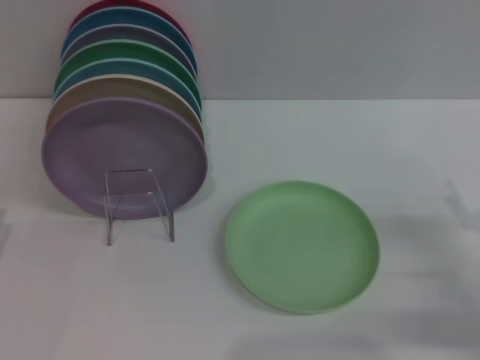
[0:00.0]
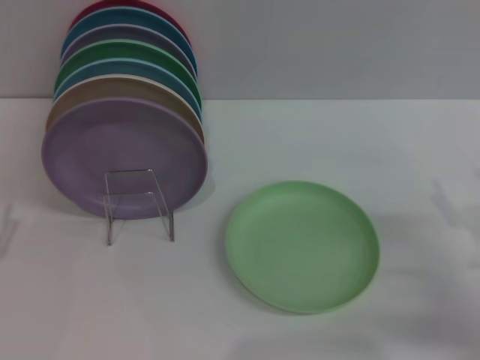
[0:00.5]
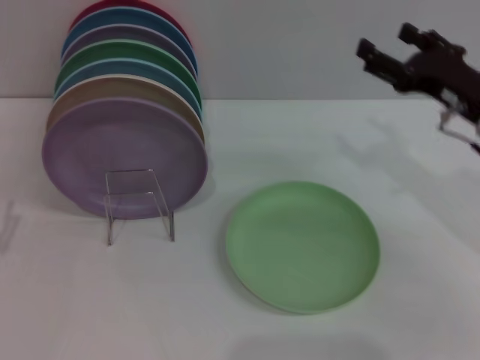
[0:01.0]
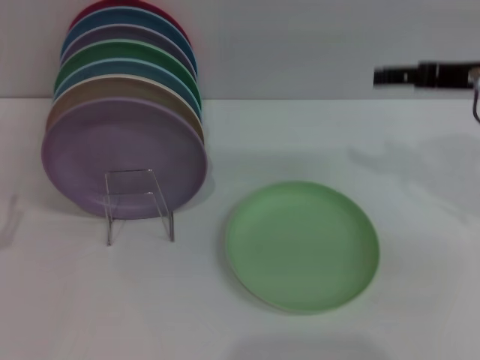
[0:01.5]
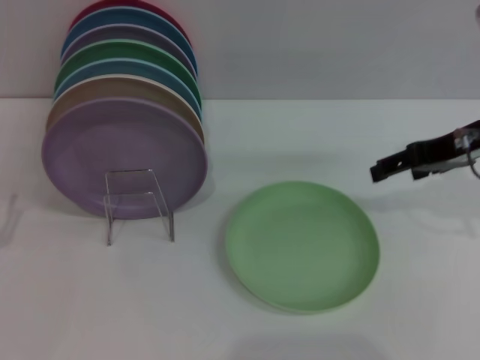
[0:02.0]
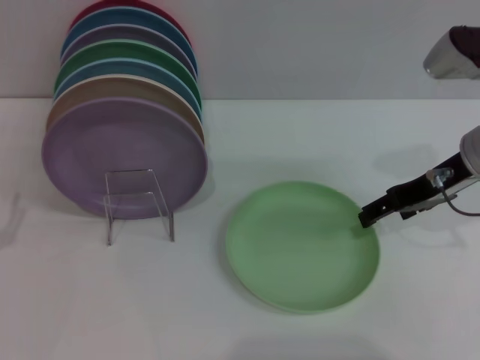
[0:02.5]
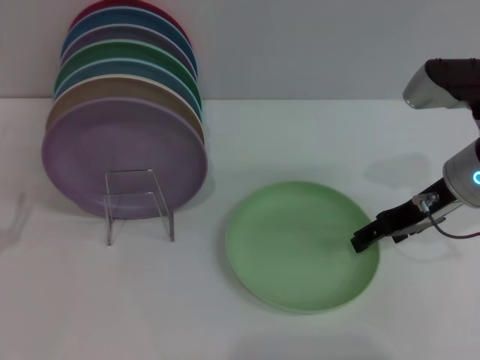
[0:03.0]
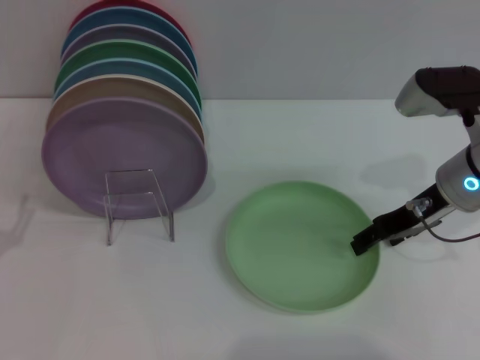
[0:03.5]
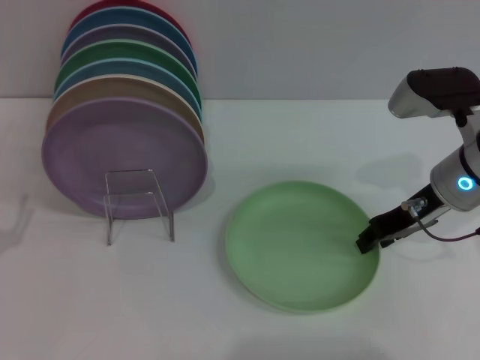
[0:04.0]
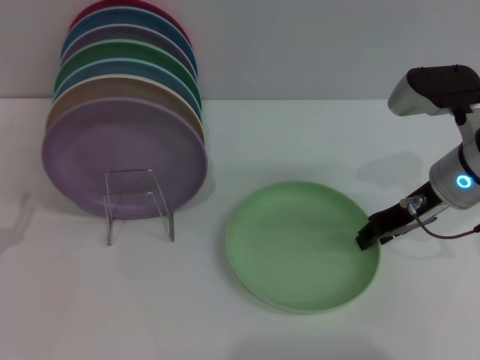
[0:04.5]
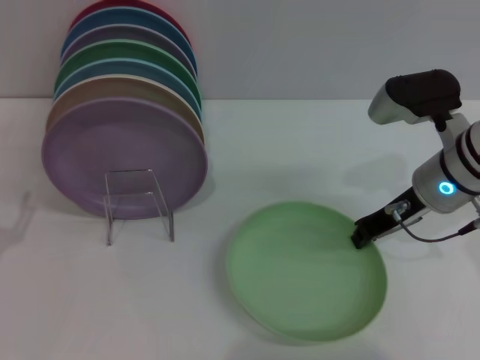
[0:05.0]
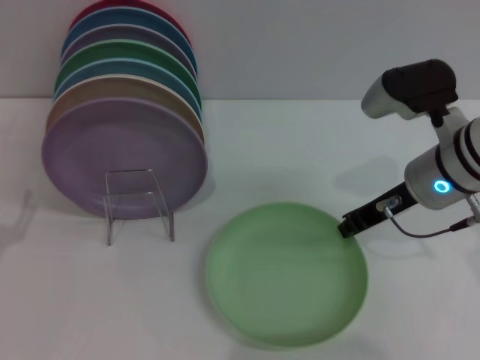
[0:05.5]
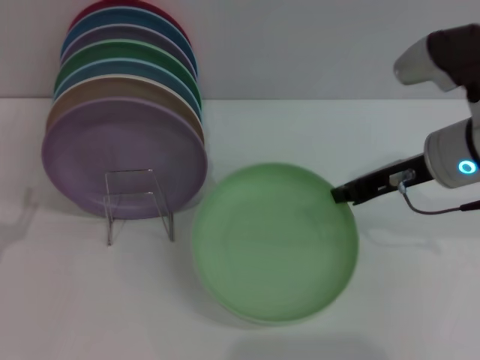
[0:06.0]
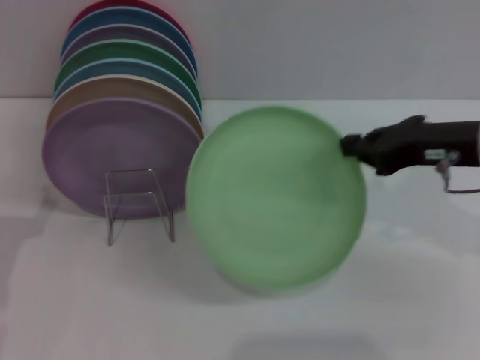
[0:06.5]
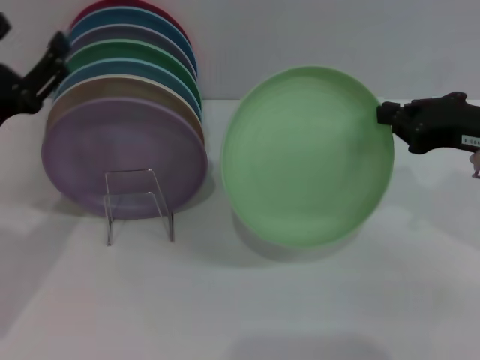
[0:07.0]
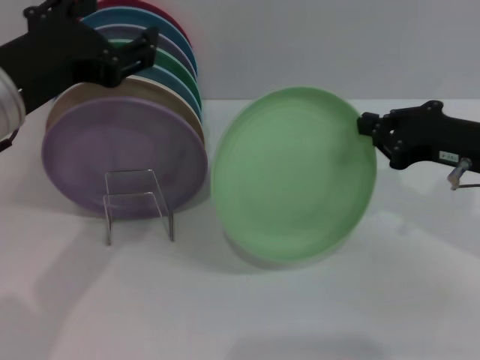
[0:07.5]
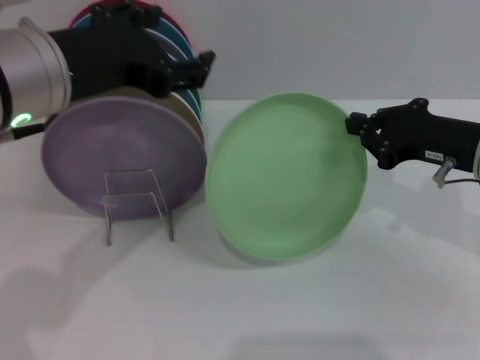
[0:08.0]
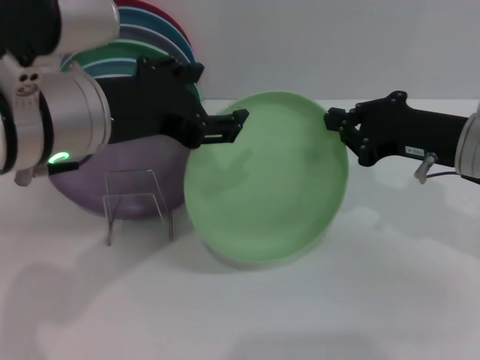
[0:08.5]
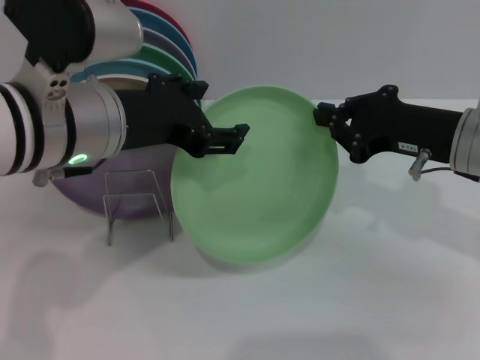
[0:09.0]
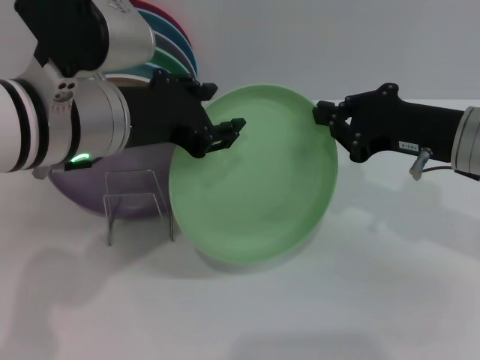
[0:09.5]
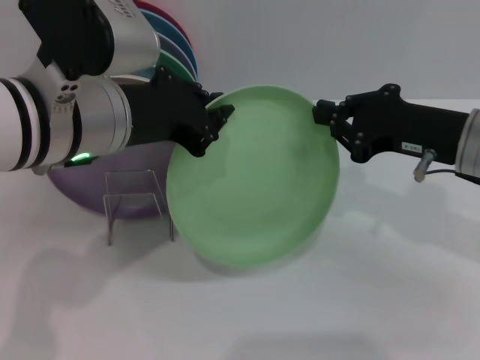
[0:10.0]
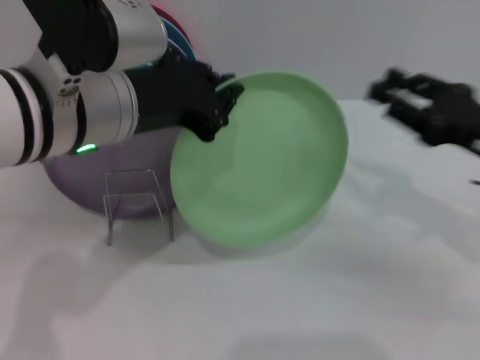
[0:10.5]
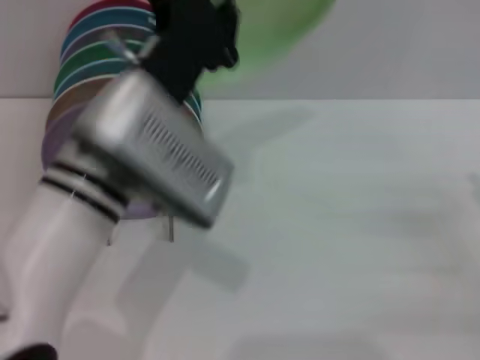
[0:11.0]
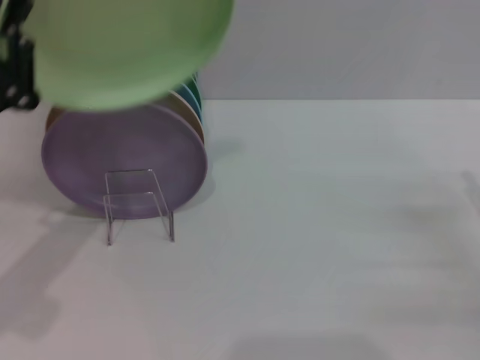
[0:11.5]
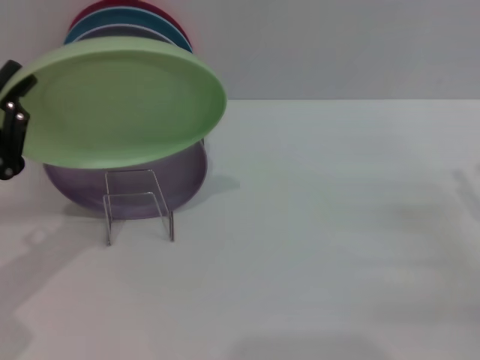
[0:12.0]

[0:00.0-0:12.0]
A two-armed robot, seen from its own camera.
Task of the whole recording: Grip the plate with one hand, pass it to the other, then set it on the shelf.
Step, 0:00.0 to 0:06.0: Pick up the plate with the right gripper.
Step, 0:06.5 to 0:10.0: Pass the plate from the right gripper to the left gripper.
0:00.0 to 0:02.0: The right gripper goes approximately 20 cm upward and forward.
0:02.0 to 0:04.0: The right gripper shifts approximately 5 cm downward, and closes.
0:04.0 to 0:06.0: The right gripper closes its fingers.
0:06.0 to 0:08.0: The left gripper moves upward and to the right, some 25 cm, while the right gripper heads to the right, covering some 5 cm.
0:08.0 to 0:10.0: The left gripper closes its fingers.
0:10.0 to 0:12.0: The right gripper is displaced to the right, downward and backward by approximately 20 cm, and opens its fingers; the left gripper is displaced to the left and downward by about 20 cm.

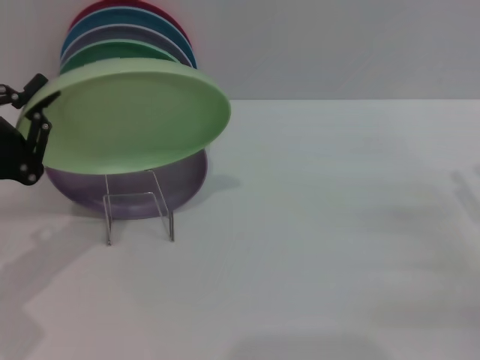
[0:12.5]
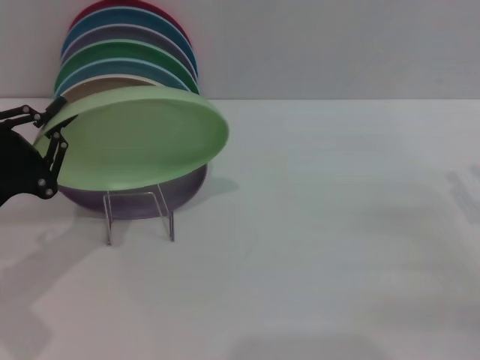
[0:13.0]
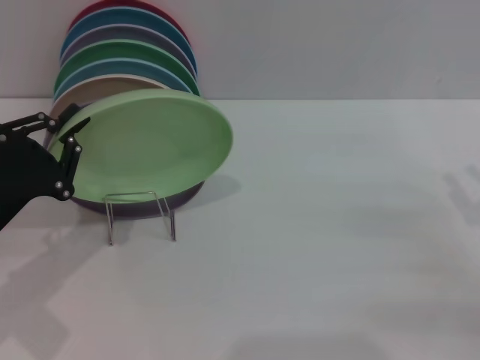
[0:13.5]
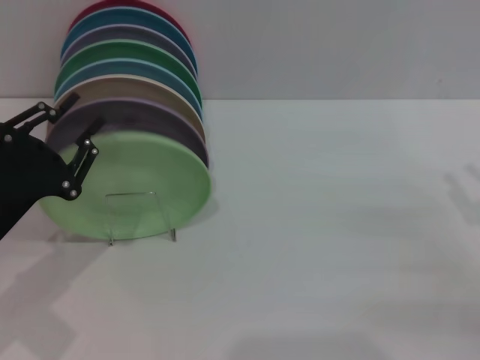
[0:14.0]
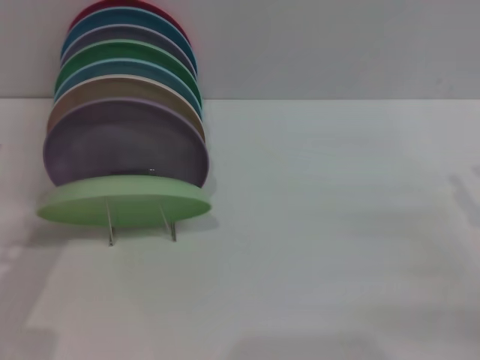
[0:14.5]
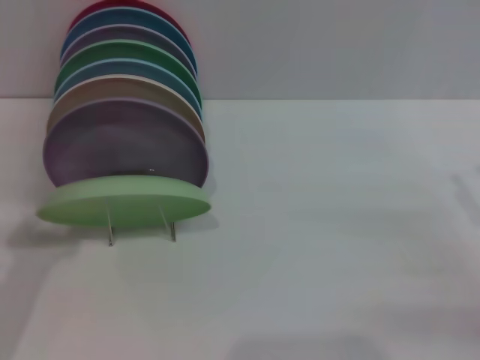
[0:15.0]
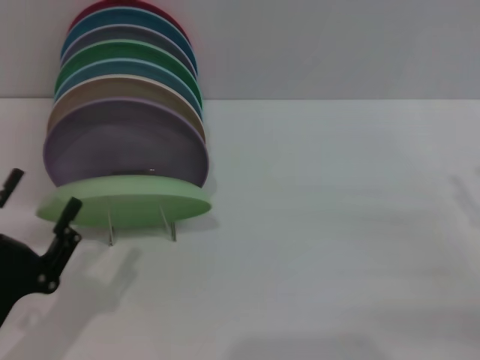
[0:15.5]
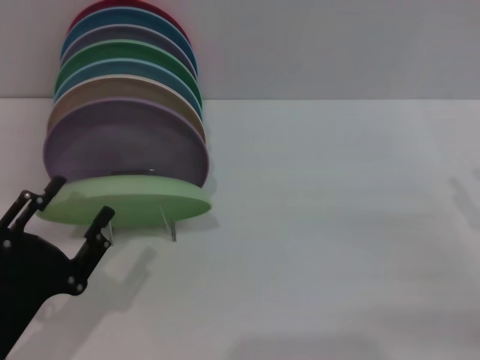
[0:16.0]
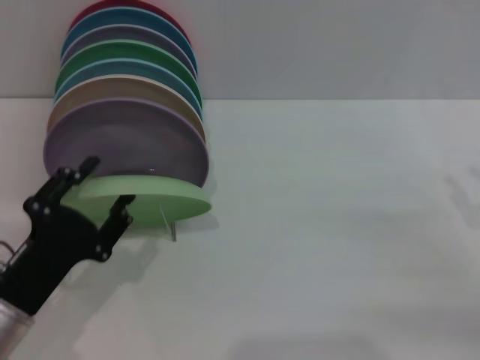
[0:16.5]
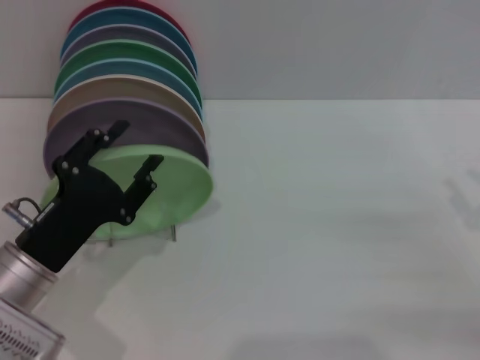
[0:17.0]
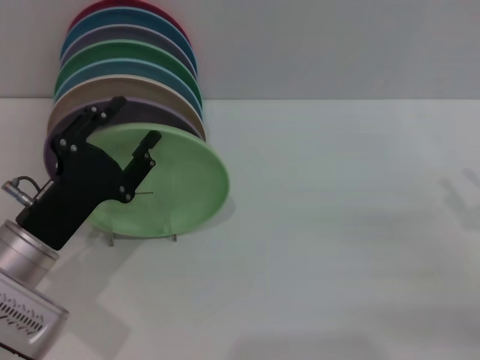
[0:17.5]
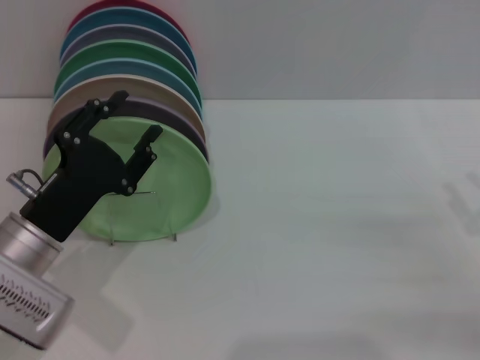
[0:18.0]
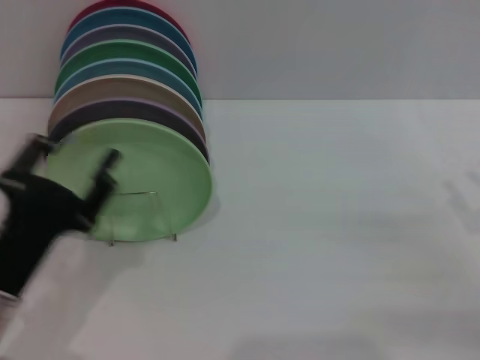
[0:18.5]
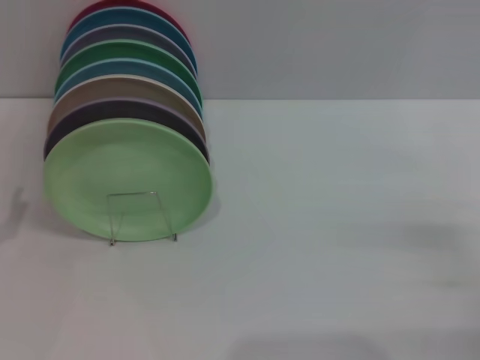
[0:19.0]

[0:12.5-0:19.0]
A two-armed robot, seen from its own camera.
Task of the whole recording: Grip the plate with one hand, pass it to the other, then set it on the shelf.
Step, 0:12.5 to 0:18.0: Place the plate on the shelf with the left gripper.
0:12.5 to 0:14.5: The left gripper opens up.
0:14.5 to 0:17.0: The left gripper shifts some 5 cm to the right, and moves about 10 cm backward and comes back.
0:17.0 to 0:19.0: The left gripper moves to the left, some 10 cm.
